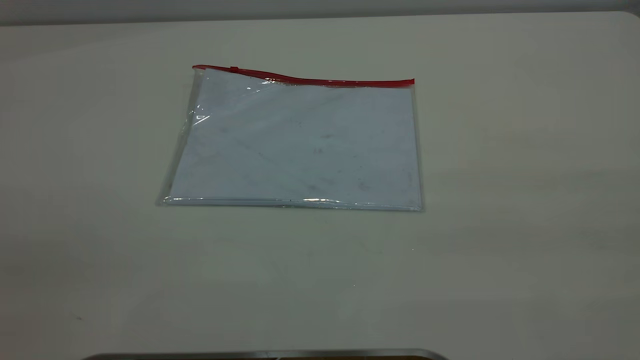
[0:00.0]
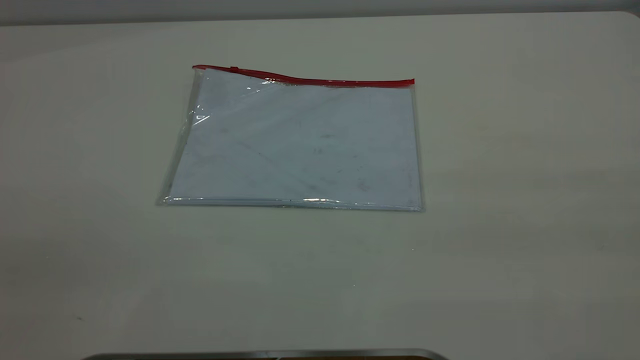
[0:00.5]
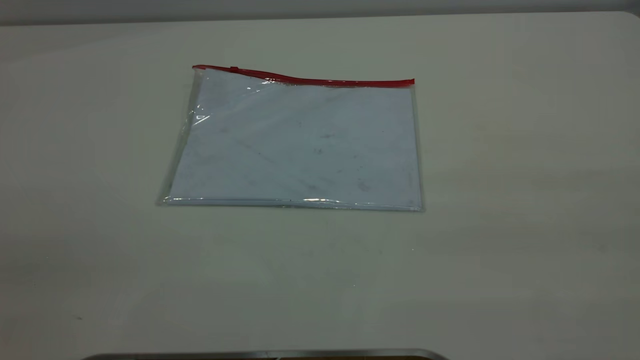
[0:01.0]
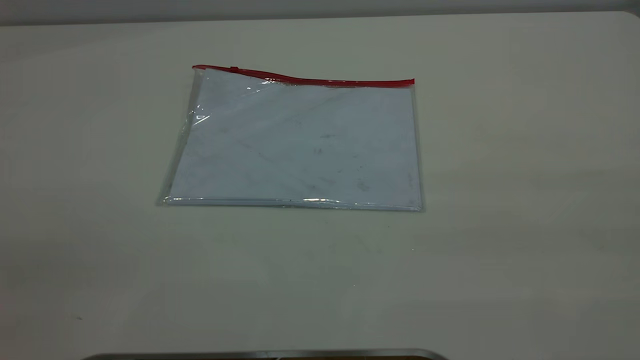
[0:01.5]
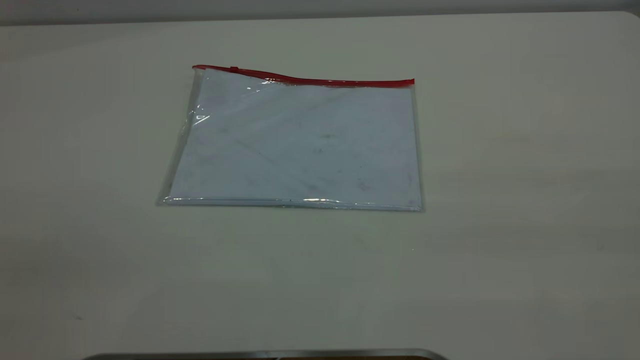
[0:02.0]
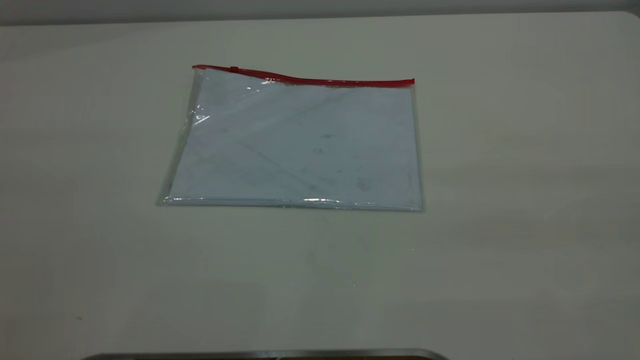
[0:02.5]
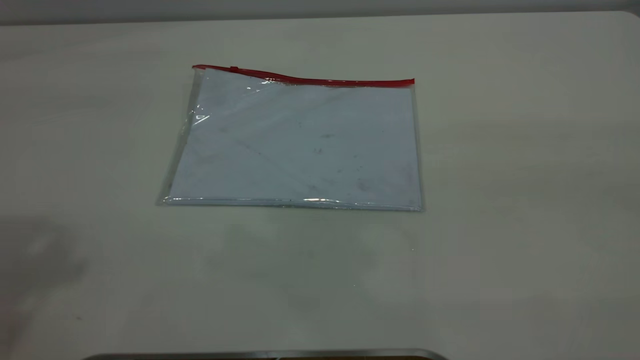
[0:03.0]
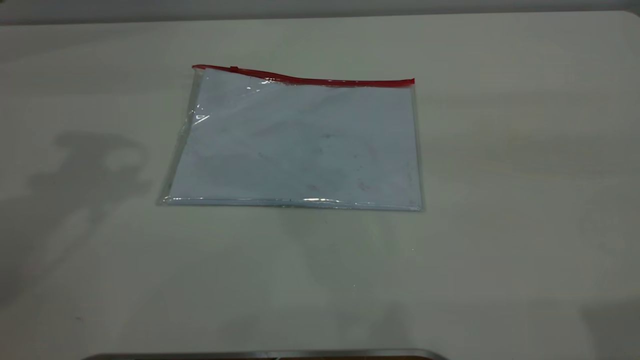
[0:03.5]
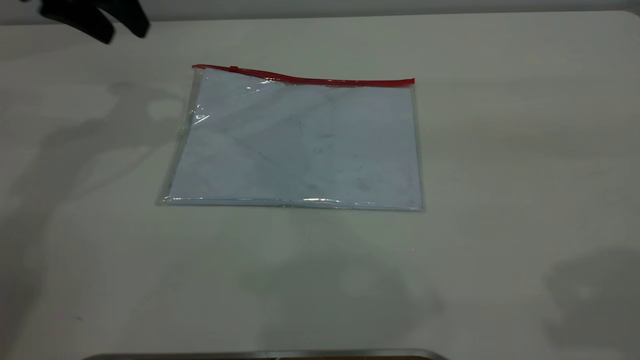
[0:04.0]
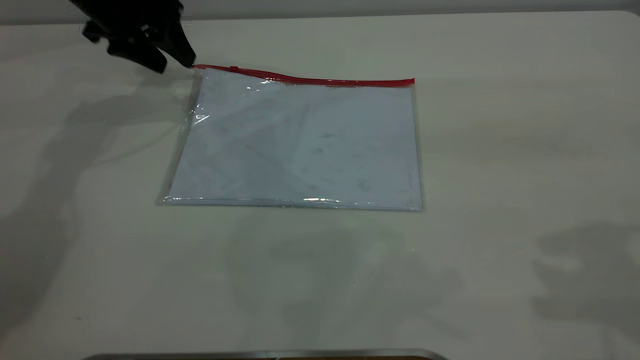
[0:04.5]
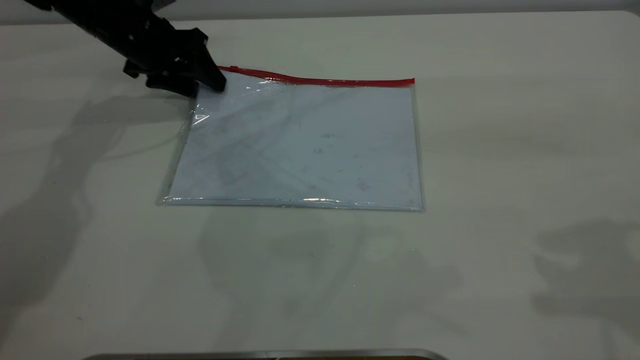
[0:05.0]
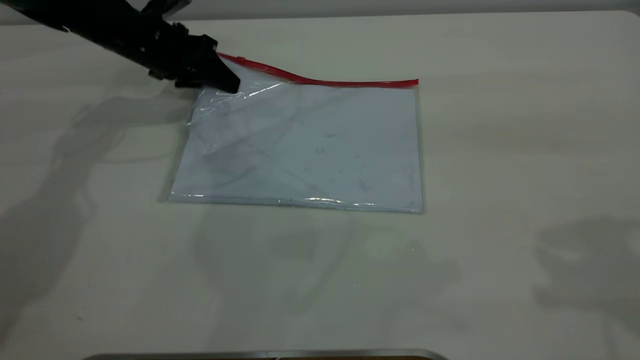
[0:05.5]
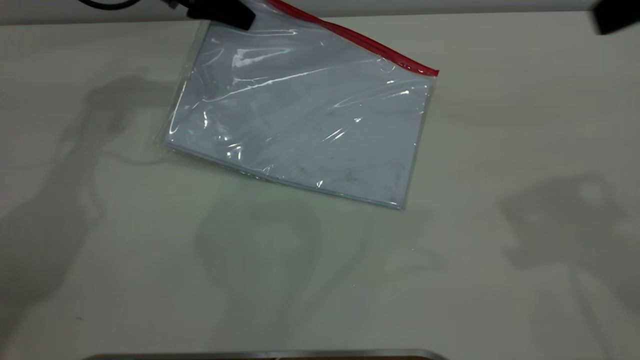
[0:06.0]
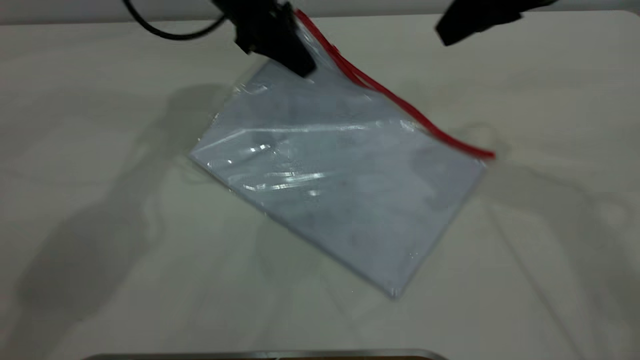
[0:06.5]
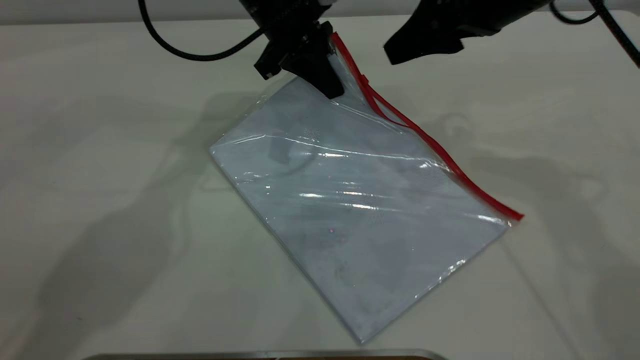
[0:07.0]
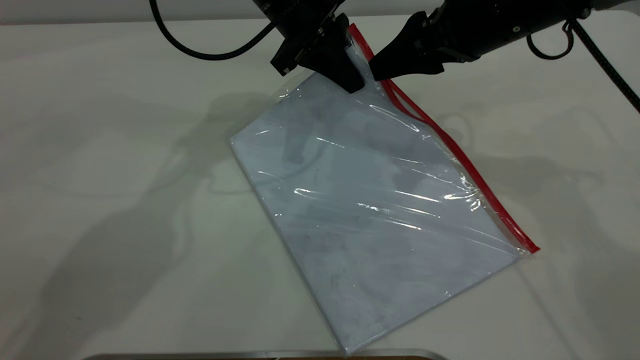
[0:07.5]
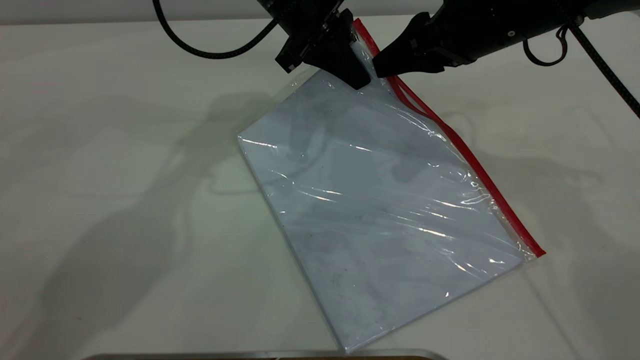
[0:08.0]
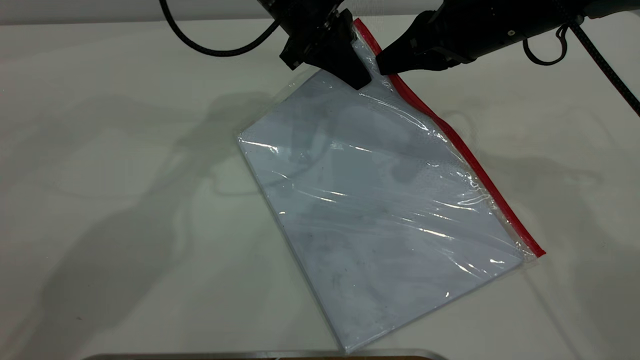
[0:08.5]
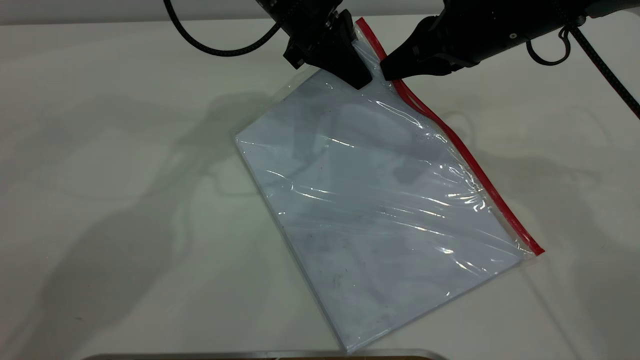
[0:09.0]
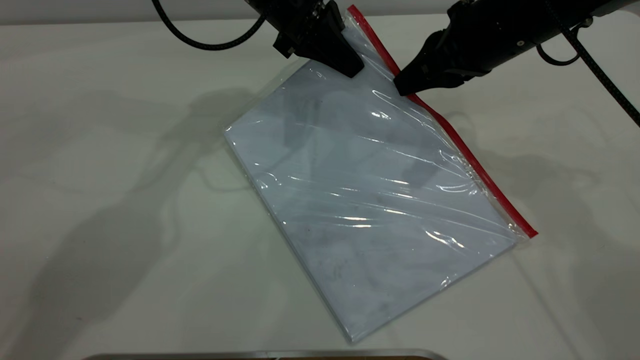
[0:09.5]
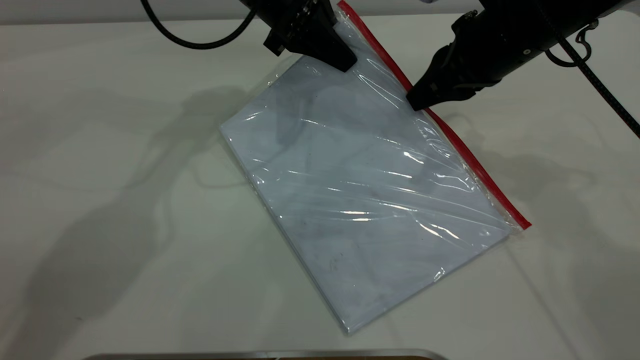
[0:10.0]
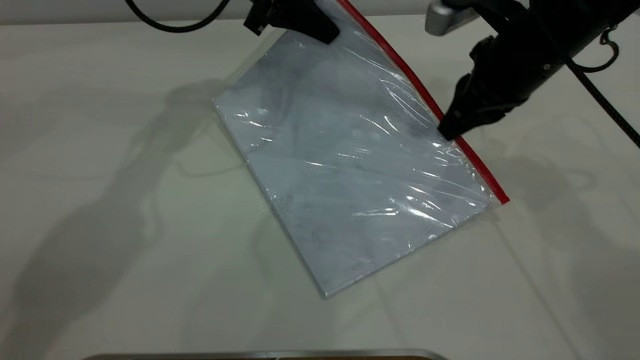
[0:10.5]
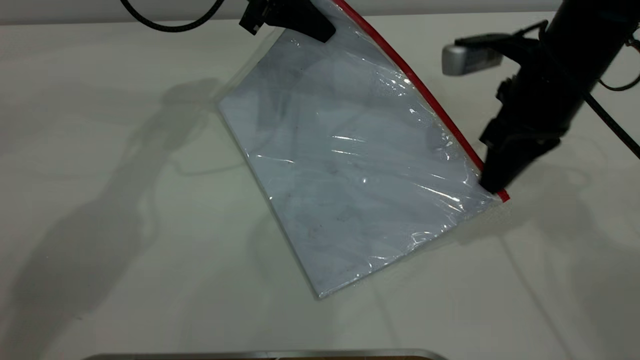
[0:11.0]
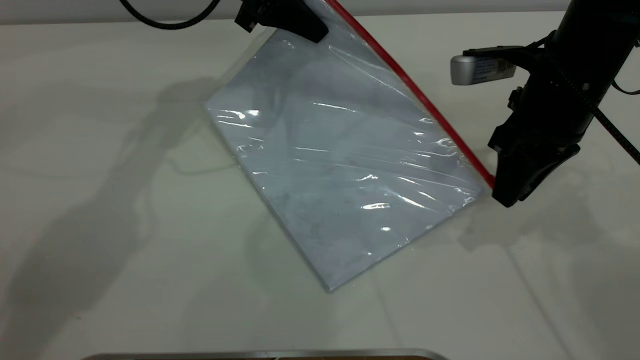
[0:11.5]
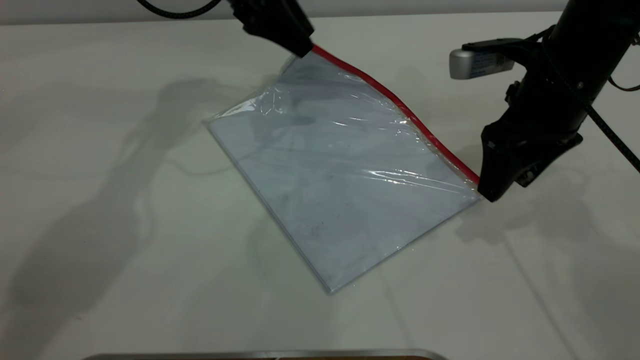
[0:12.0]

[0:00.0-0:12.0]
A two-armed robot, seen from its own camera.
Step, 0:00.0 to 0:05.5: Pick up the transparent plastic bag with the left gripper.
Step, 0:06.0 to 0:11.0: Pulling up the zipper on the transparent plastic bag with the right gripper to close it.
0:00.0 to 0:02.0: The two grippers keep their place.
0:02.0 to 0:04.0: The left gripper moves forward, about 50 cm.
0:04.0 to 0:06.0: The right gripper shifts about 10 cm forward. Meanwhile the left gripper shifts about 10 cm forward, to the right and downward, and closes.
0:06.0 to 0:08.0: The right gripper moves downward, forward and to the left, some 20 cm, and closes. The left gripper goes some 15 cm to the right.
0:08.0 to 0:10.0: The right gripper closes its fingers.
0:10.0 to 0:12.0: The right gripper opens up, while the left gripper opens its fingers.
